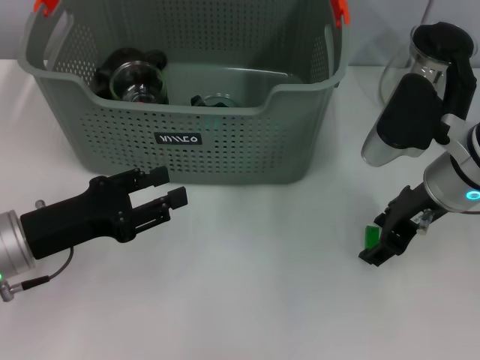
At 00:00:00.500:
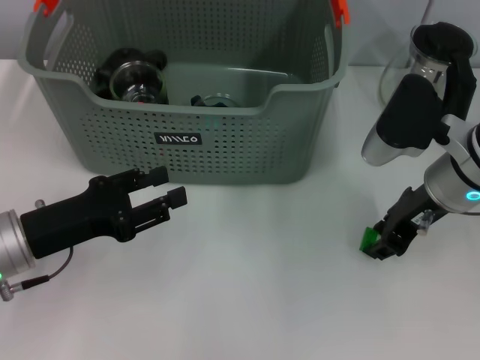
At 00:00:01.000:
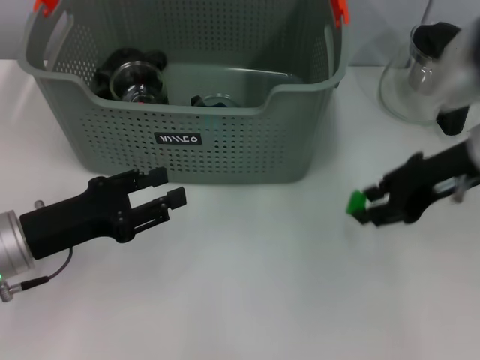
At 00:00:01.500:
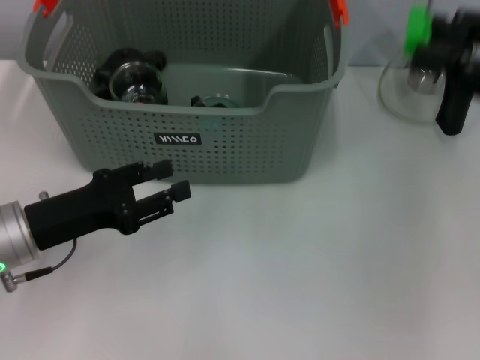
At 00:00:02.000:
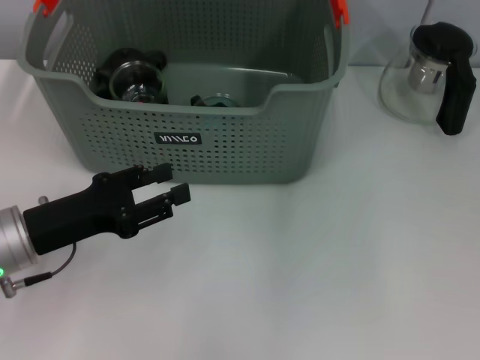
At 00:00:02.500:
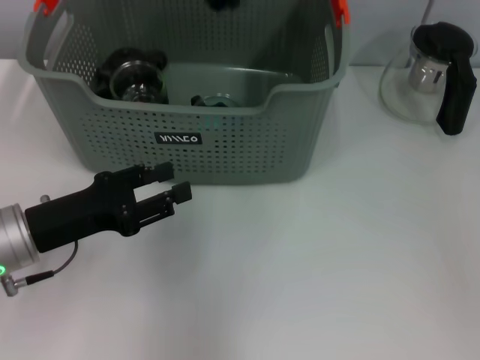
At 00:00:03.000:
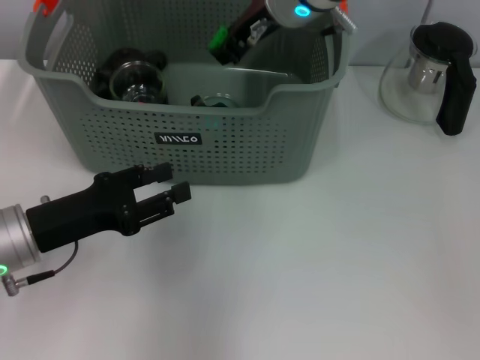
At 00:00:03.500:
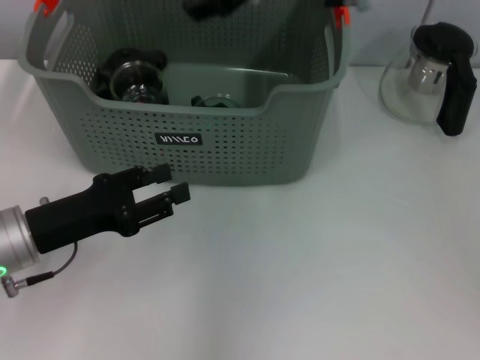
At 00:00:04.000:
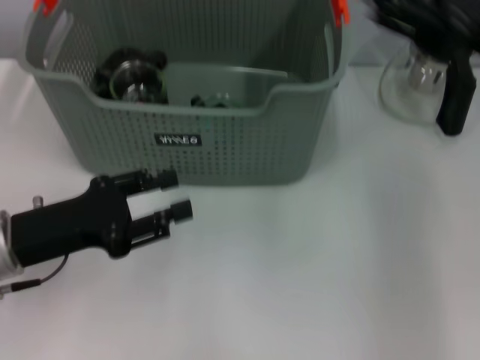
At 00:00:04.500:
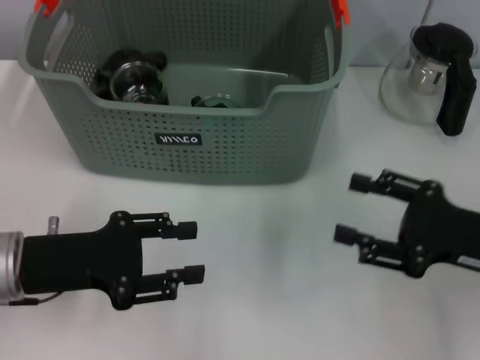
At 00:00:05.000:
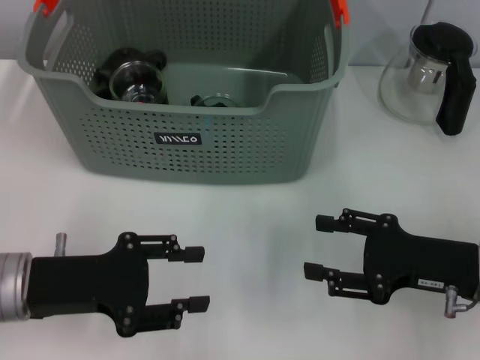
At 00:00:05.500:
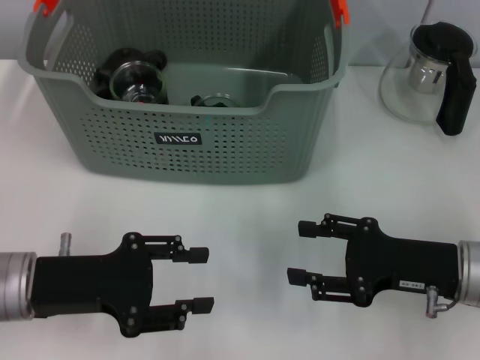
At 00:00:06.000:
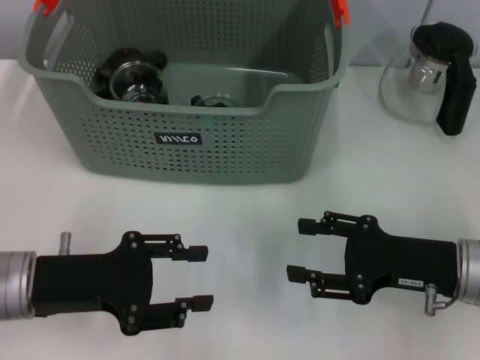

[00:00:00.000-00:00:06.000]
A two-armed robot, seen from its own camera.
Task of the whole recording: pick up the teacup on the table and place it into the storage bin, pick up the block on the table and place it into the storage bin.
Step, 00:00:01.000 to 00:00:03.000: Place the green block in the storage box with right gripper.
00:00:00.000 to 00:00:02.000: The right gripper shifts approximately 20 cm upward, and closes its fingers.
00:00:02.000 to 00:00:04.000: The right gripper moves downward and backward, roughly 15 cm, moves approximately 15 cm to the left and comes back, and opens.
00:00:04.000 to 00:00:06.000: The right gripper is displaced downward by roughly 15 cm.
